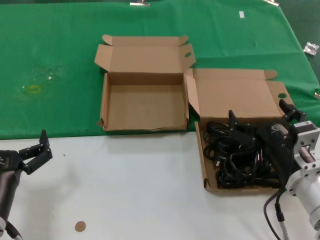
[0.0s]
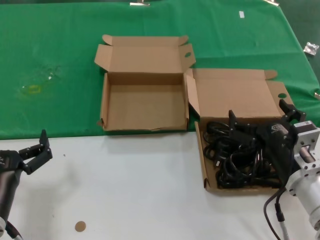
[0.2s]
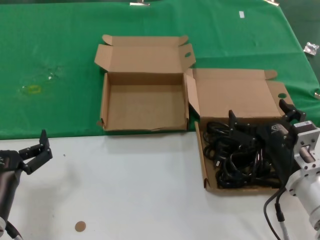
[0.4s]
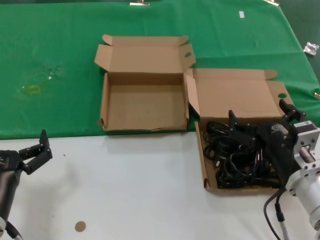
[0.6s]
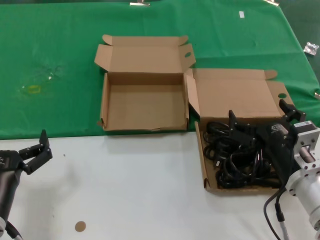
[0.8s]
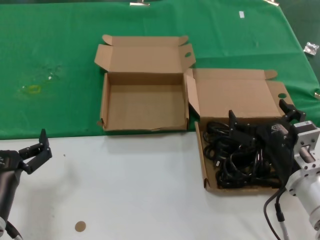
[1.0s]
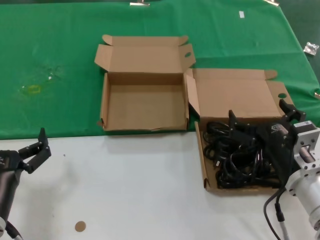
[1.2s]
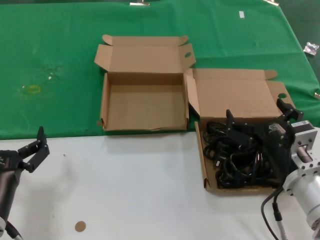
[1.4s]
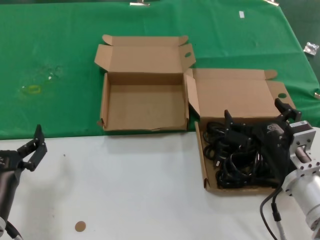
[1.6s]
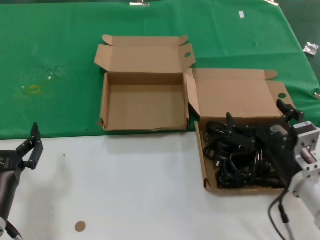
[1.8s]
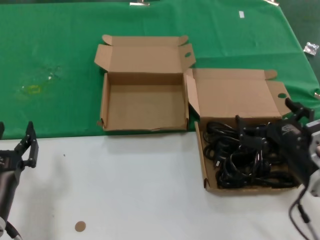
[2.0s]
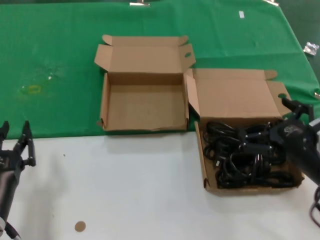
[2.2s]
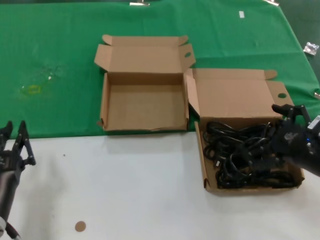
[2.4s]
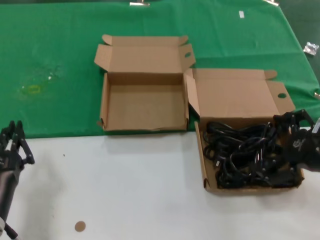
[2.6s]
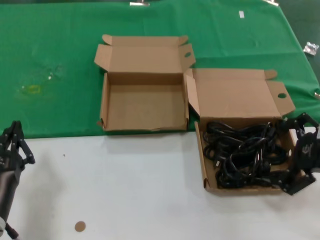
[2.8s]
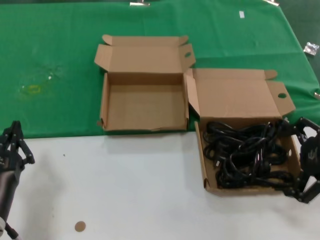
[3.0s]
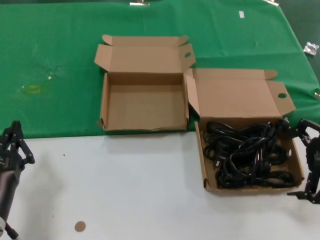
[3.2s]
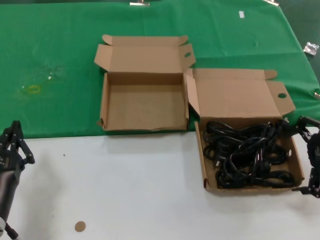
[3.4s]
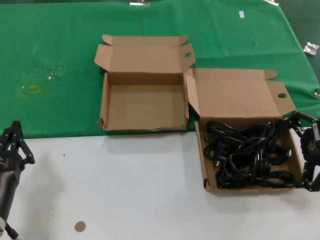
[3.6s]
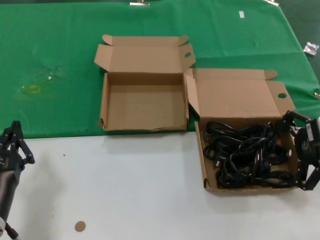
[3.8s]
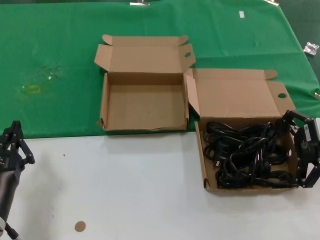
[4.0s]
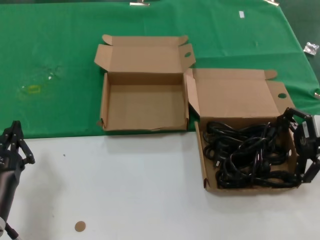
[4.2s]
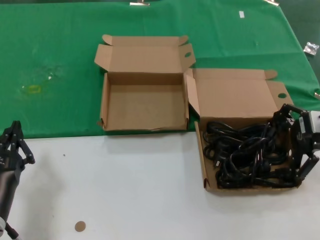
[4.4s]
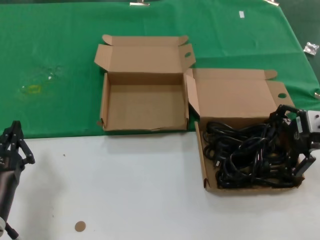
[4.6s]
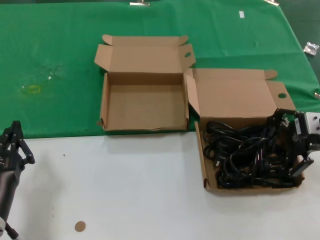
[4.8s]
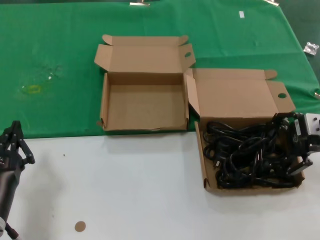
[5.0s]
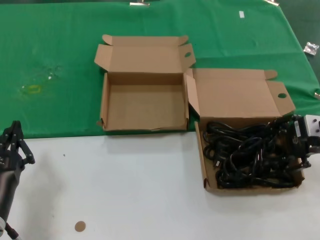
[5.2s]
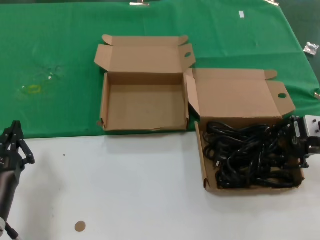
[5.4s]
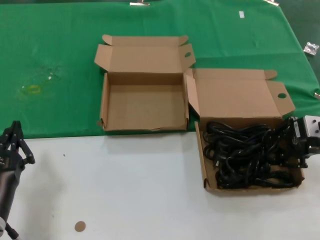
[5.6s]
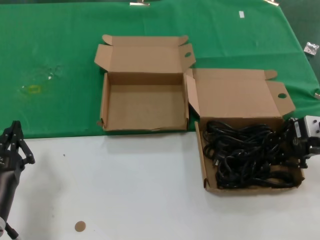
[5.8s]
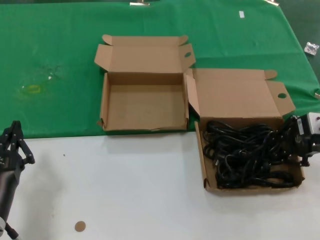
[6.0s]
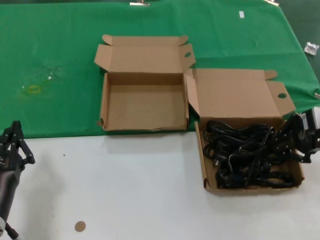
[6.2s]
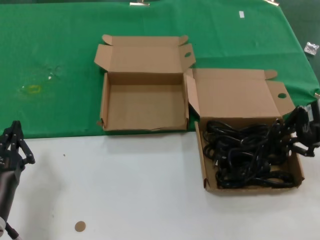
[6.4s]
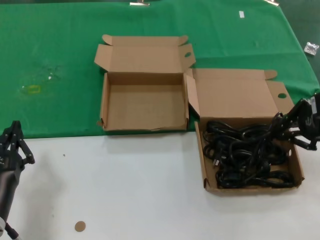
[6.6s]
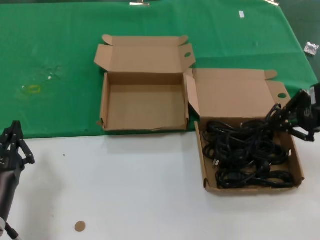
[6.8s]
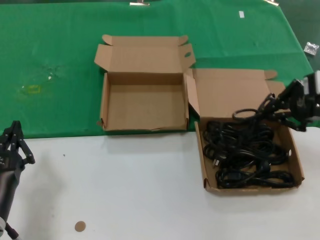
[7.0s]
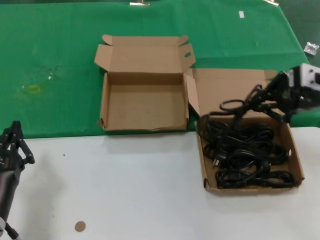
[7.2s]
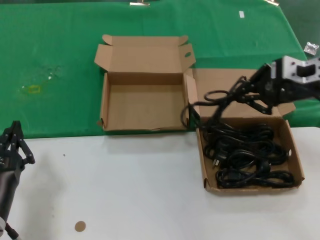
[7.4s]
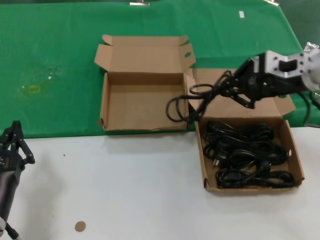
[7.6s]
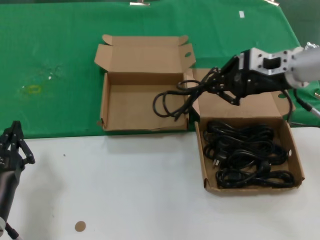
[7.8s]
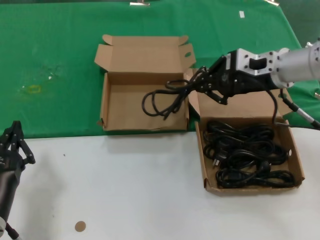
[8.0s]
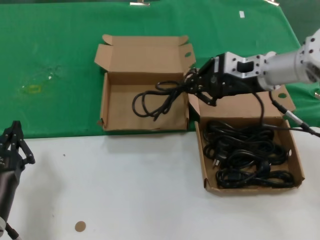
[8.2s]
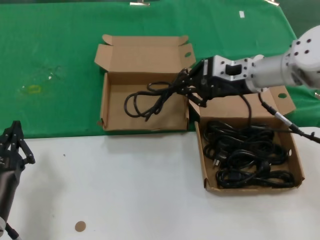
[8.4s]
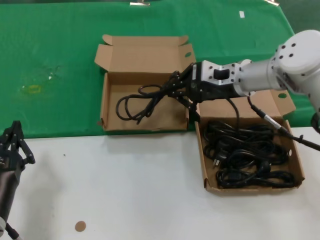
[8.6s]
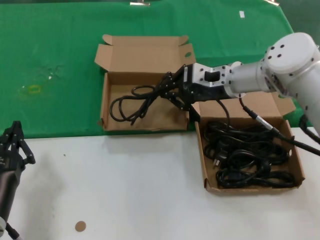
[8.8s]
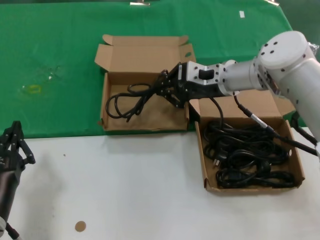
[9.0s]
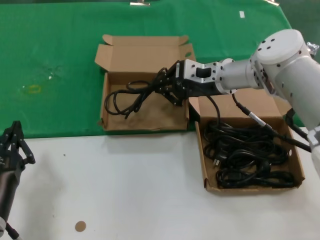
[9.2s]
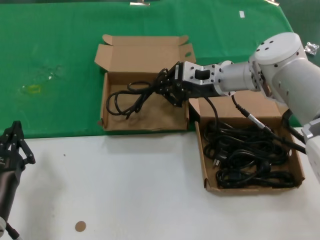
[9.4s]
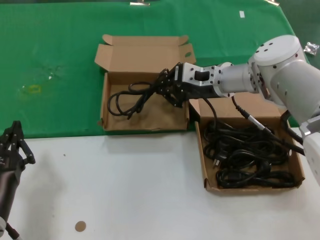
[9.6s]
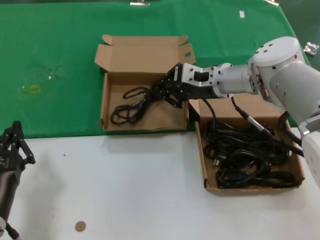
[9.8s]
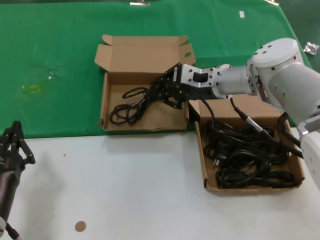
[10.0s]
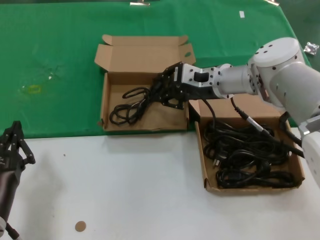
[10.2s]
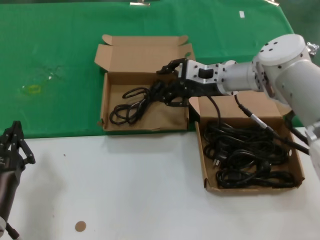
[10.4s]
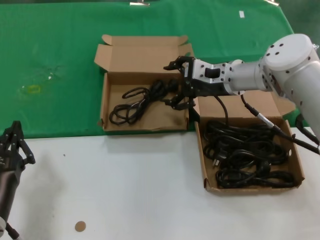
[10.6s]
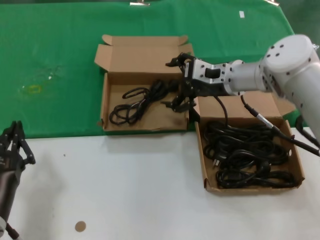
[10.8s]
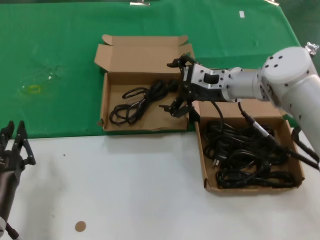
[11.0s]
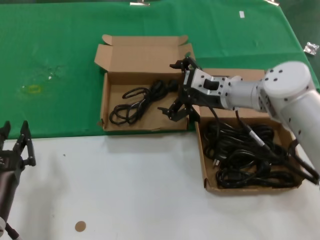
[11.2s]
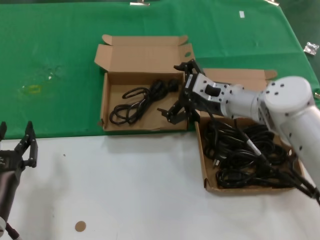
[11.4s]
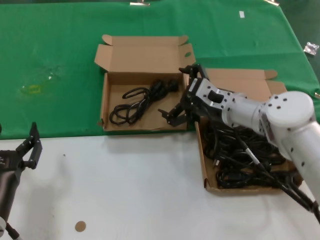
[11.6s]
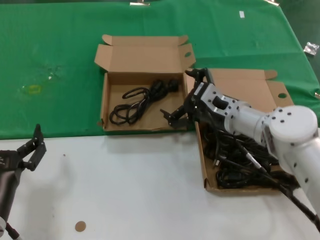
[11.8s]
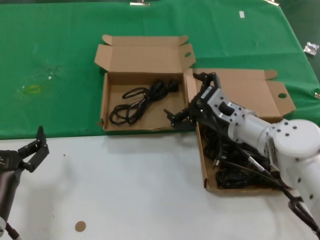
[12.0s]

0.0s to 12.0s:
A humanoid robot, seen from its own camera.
Task of the whole recording: take the parts from the box containing them and put them into an empty box.
Step, 0.0s to 5.6s: Grasp the data cable.
Step, 6.0s to 10.8s: Place the data cable in the another box.
0.0s to 1.6s: Both hands stay put.
1.6s to 3.0s: The right hand heads upward and to the right, covering about 20 cm.
3.0s to 4.4s: The right hand heads forward, covering some 10 cm.
4.4s to 6.0s: The hands make only small movements.
6.0s to 7.6s: The right hand heads to the left, upward and forward, covering about 10 cm.
7.6s to 9.0s: The right hand heads to the left, forward and downward, covering some 15 cm.
9.0s to 10.4s: The hands make only small movements.
10.4s to 12.0s: The right hand is displaced downward and backward by some 15 cm.

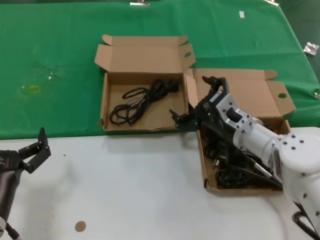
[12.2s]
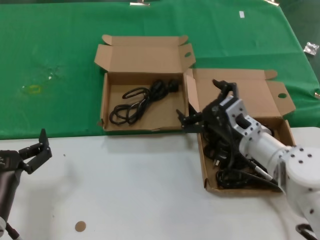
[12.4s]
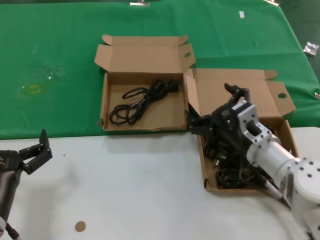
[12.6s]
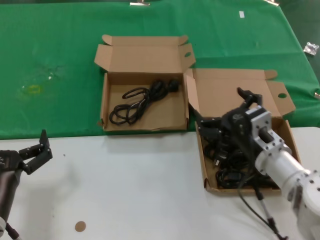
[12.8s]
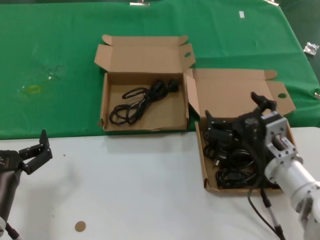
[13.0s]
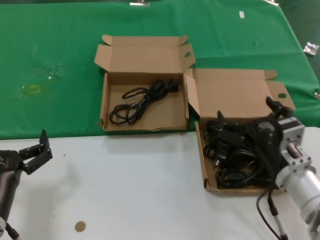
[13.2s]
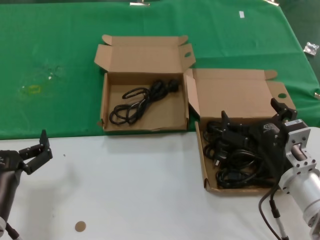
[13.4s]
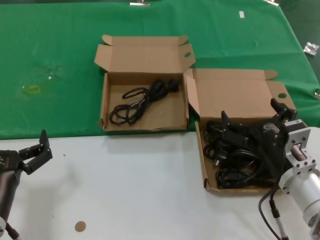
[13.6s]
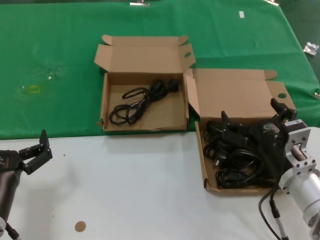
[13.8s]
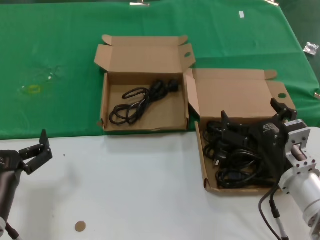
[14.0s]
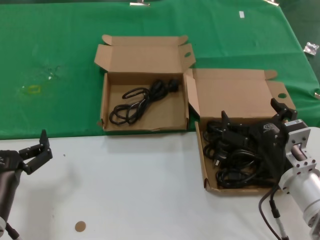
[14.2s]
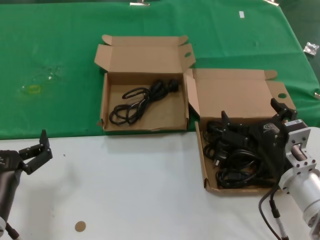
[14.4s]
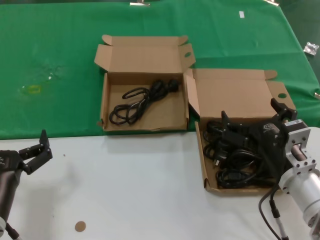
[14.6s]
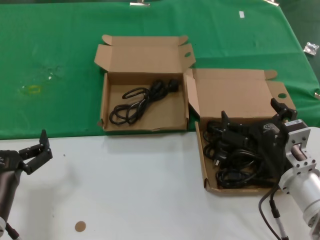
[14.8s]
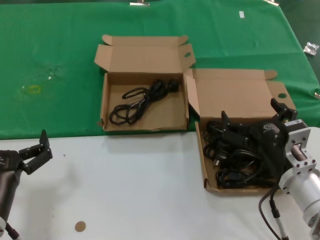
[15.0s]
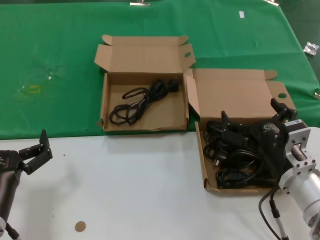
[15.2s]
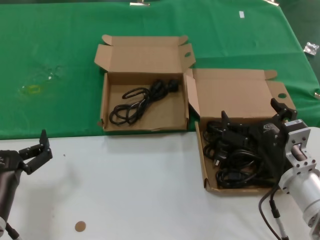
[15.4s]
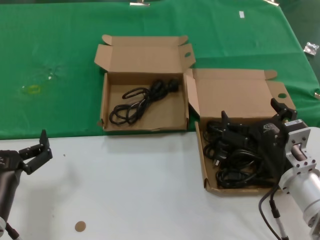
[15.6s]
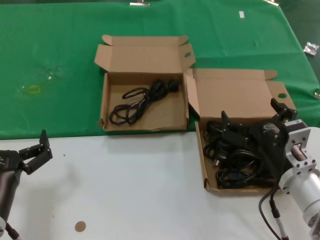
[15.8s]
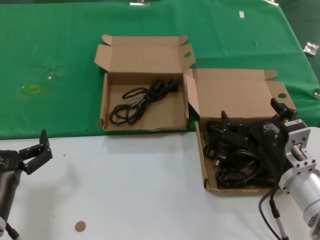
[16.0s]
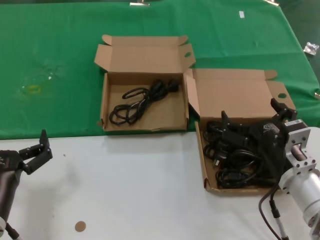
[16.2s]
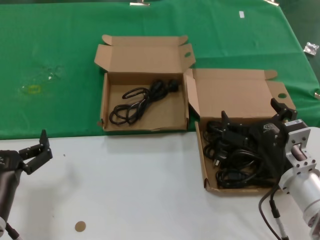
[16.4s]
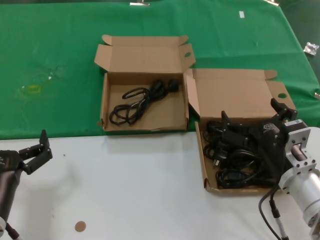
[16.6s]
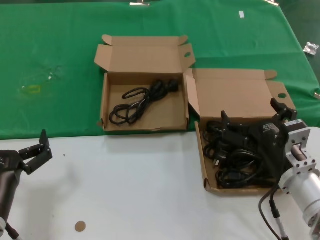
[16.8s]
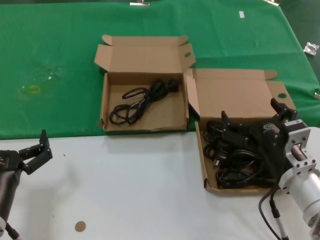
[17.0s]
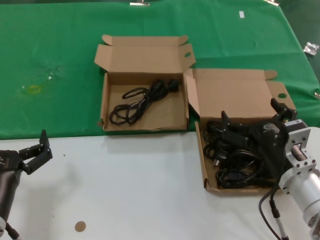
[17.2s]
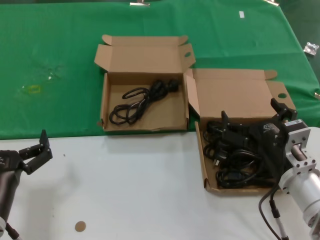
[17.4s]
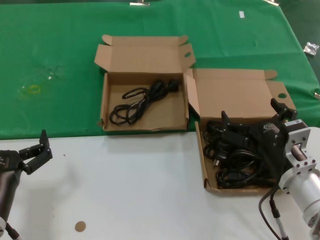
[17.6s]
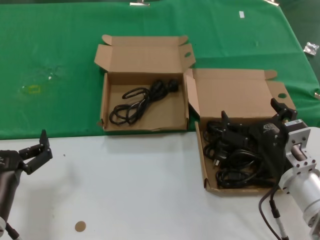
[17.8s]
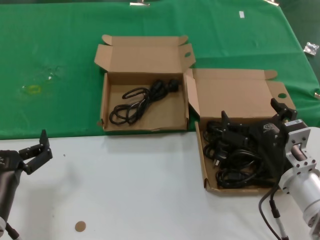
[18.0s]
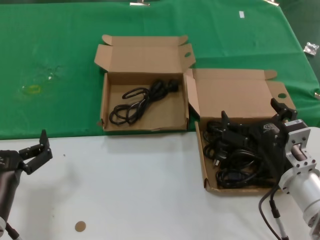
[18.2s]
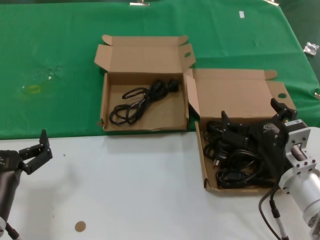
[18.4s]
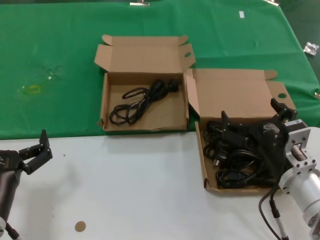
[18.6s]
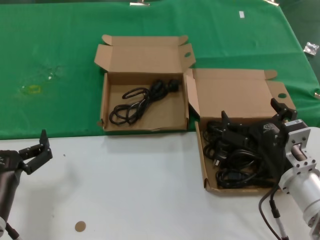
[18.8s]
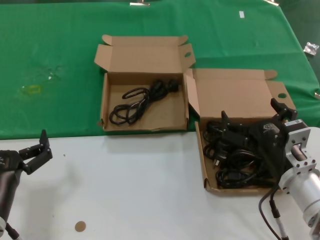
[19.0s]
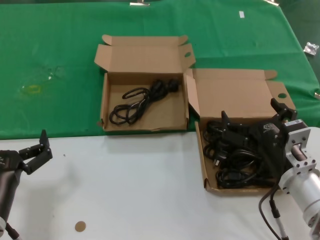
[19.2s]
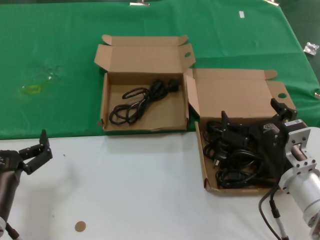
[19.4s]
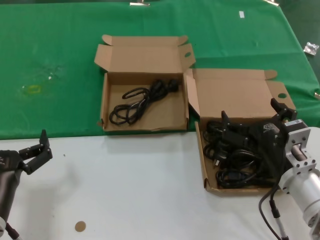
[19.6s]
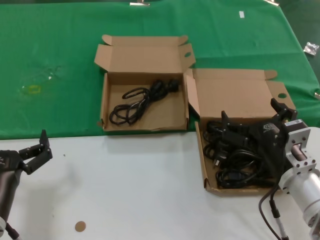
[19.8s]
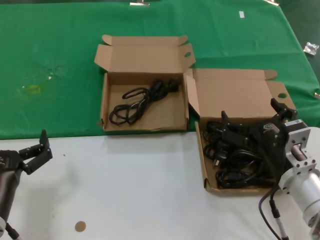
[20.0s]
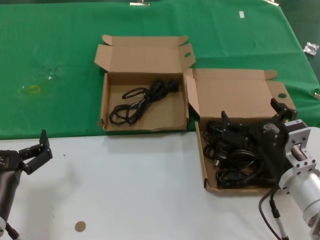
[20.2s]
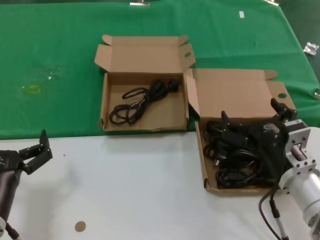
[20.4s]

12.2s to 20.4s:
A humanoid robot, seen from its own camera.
Task of the whole recording: take the parts from the box containing them and put them into an empty box.
12.2s to 13.8s: The right hand is displaced backward by approximately 15 cm.
13.8s to 20.4s: Both hands stay about where they are.

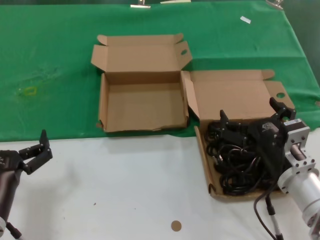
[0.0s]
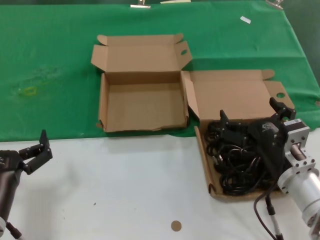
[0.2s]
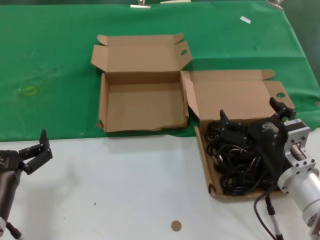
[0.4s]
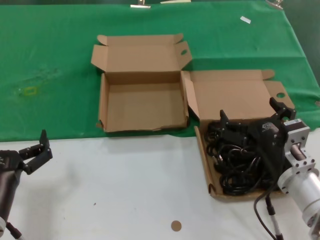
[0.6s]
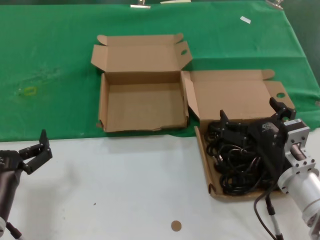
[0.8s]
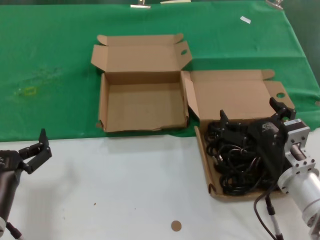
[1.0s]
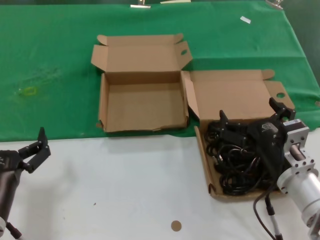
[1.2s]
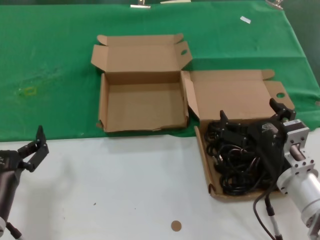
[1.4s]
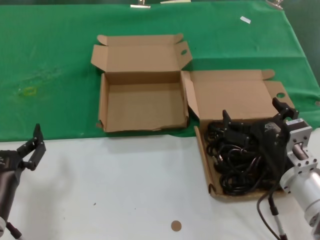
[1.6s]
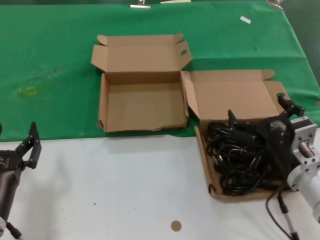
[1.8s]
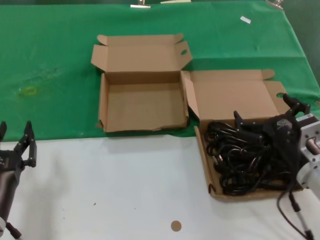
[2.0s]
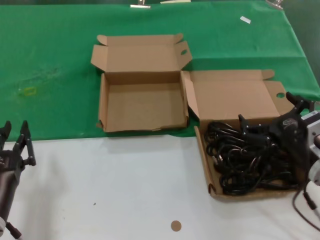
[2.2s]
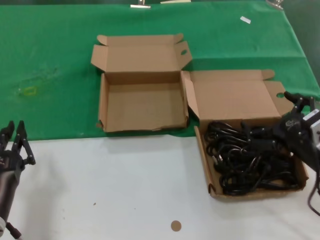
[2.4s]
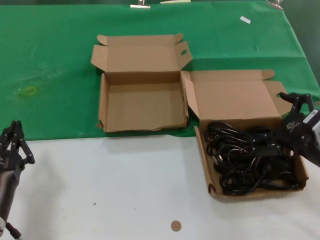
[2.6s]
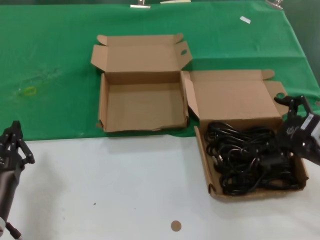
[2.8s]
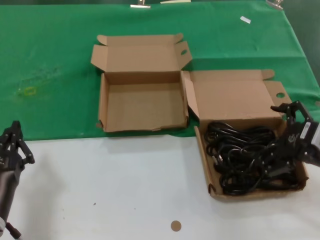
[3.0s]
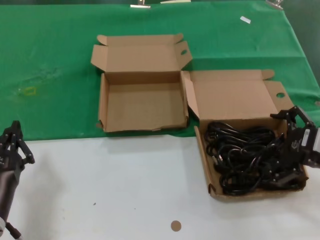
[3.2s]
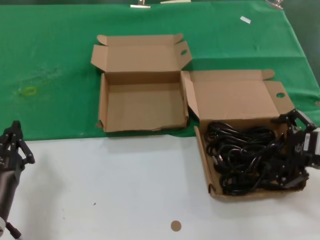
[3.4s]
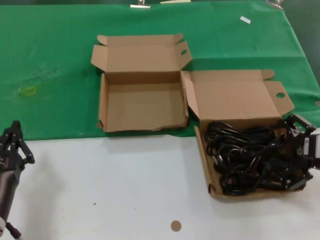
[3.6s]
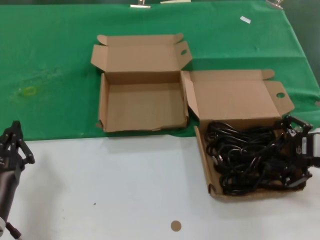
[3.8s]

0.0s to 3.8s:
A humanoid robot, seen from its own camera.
Task of the whole recording: take the parts from the box containing them and put them into an empty box.
0.0s to 1.2s: The two hands keep their place.
1.2s to 2.6s: The right hand heads to the right and upward, covering some 10 cm.
2.6s to 3.8s: The right hand ends up approximately 5 cm from where it was.
